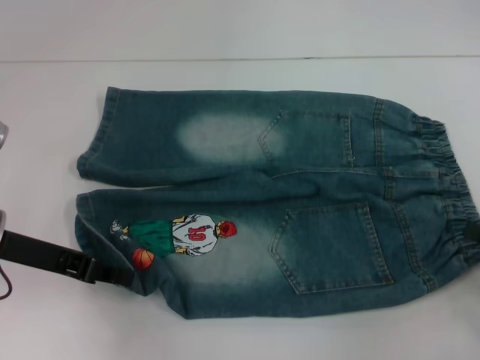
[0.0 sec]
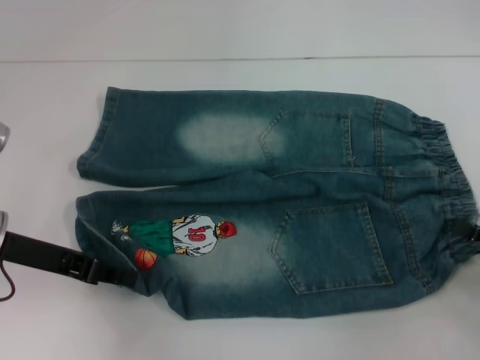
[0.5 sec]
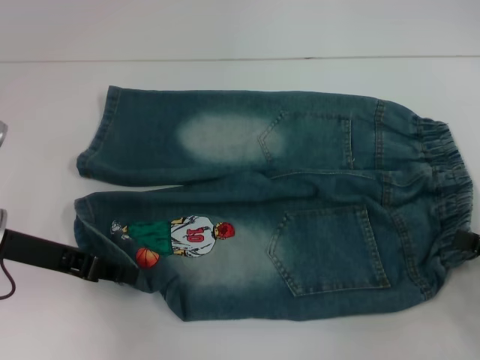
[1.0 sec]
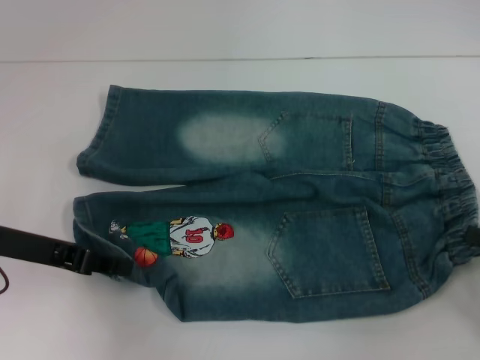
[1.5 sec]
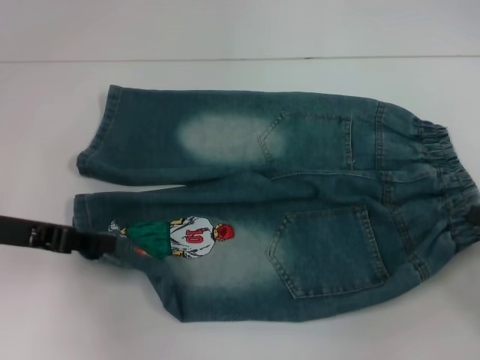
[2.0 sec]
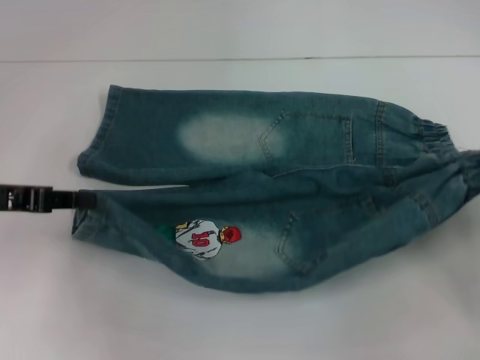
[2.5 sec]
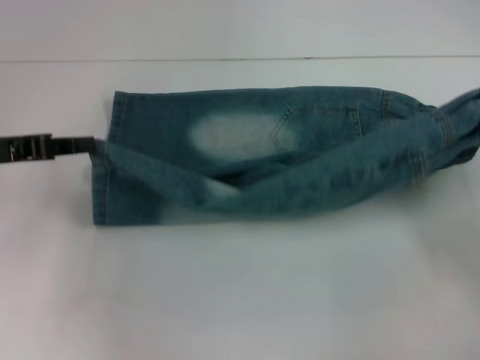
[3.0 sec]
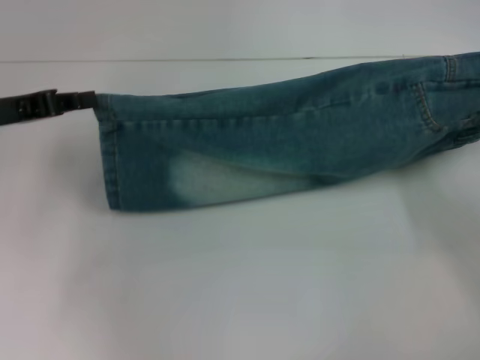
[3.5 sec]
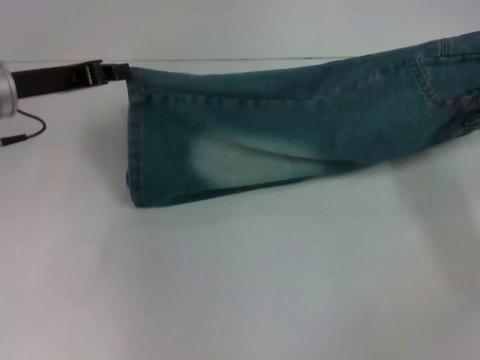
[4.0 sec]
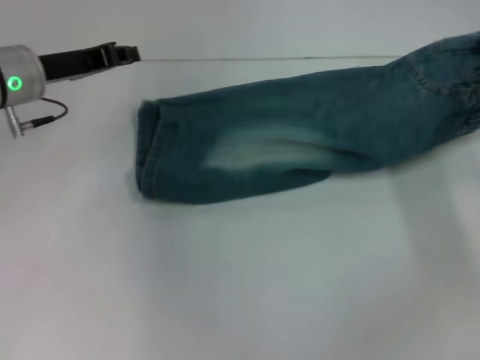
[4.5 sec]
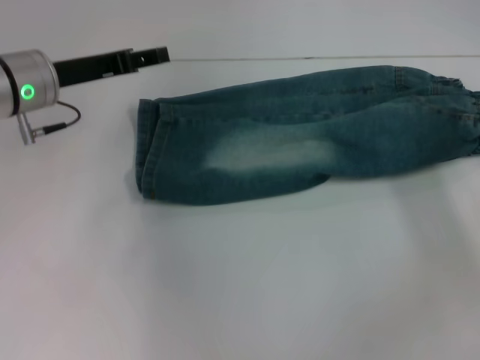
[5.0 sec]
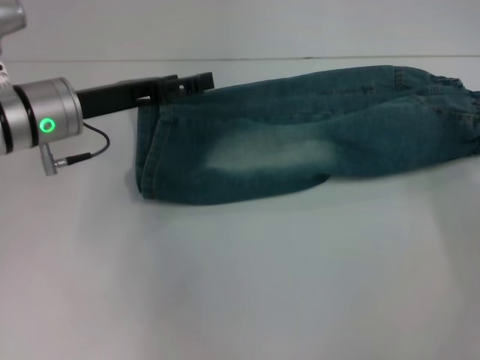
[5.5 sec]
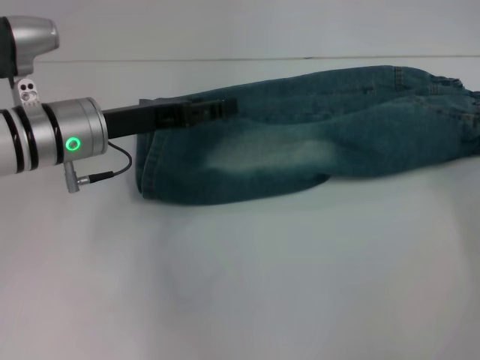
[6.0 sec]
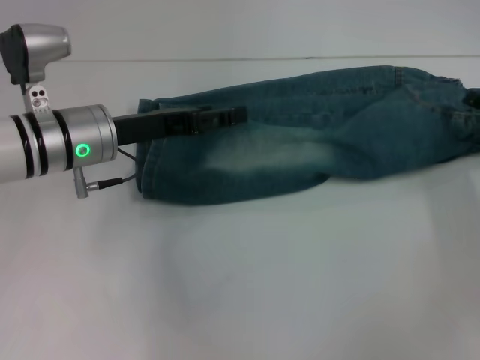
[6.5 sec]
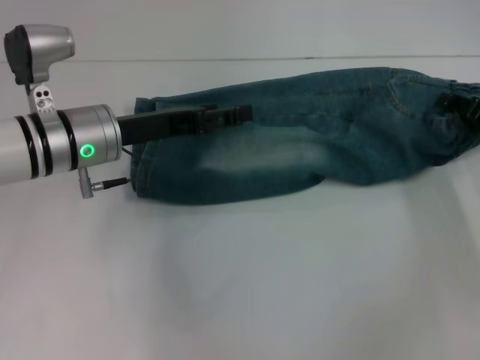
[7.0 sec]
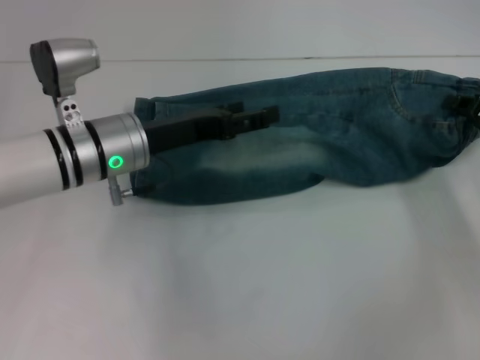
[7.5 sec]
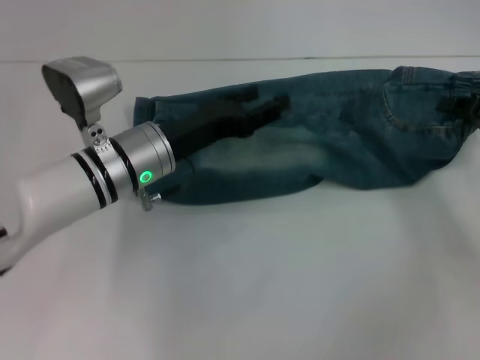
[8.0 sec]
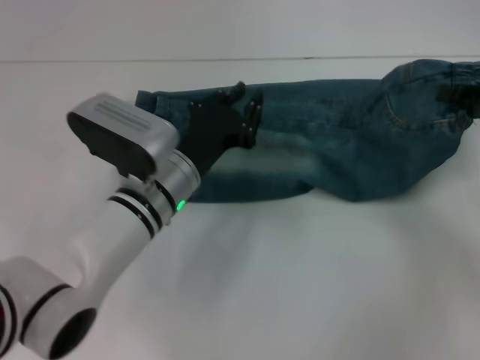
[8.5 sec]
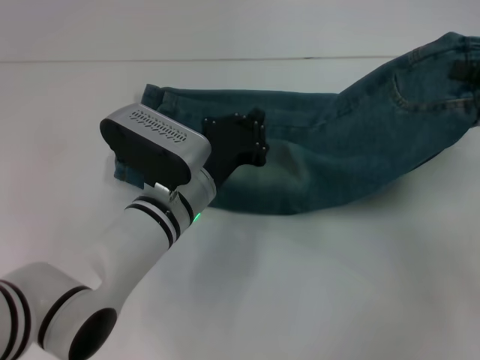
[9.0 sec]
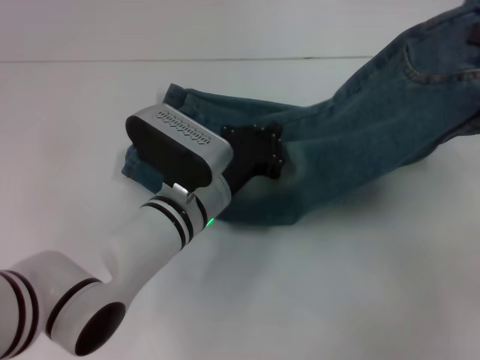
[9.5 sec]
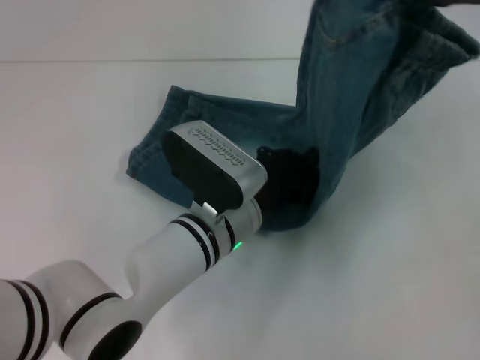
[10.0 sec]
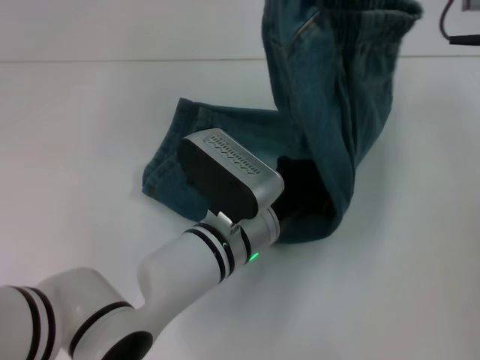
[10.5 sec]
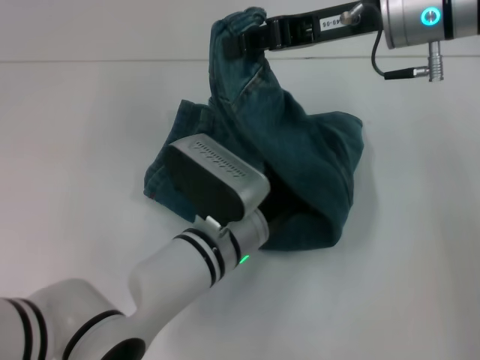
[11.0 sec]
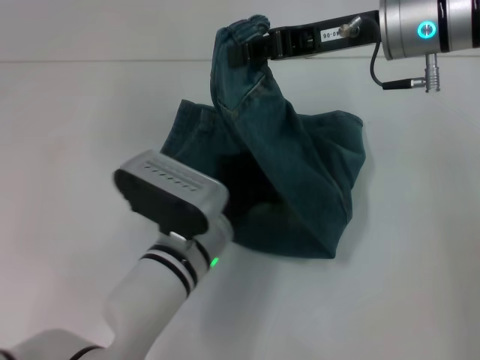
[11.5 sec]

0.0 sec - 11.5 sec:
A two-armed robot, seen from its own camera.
Step, 1.5 sec - 4.5 sec: Fold upward with your right hand.
Step, 5.0 sec - 6.5 sec: Grab the waistband with your right hand.
Step, 7.0 sec - 11.0 sec: Press the middle of the pants with your left hand.
0.0 sec - 2.0 sec: The right gripper closes up.
2.0 sec - 4.0 sec: Both grippers move forward, approximately 10 cm.
4.0 sec - 6.0 sec: The left gripper heads to the right, covering about 10 cm, and opens its fingers, while the right gripper moves about 5 cm, and opens its fingers.
6.0 sec - 7.5 sec: The right gripper ends up some 5 cm from where it was, and closes its fingers.
7.5 sec - 9.5 sec: The right gripper heads upward and backward, covering approximately 10 cm; the left gripper heads to the right and downward, covering approximately 10 cm, and closes its fingers.
9.5 sec - 11.5 sec: The right gripper moves to the left and forward, some 20 cm.

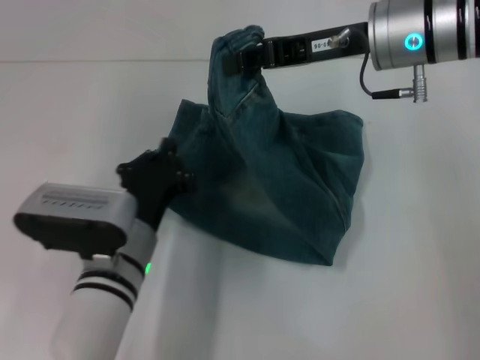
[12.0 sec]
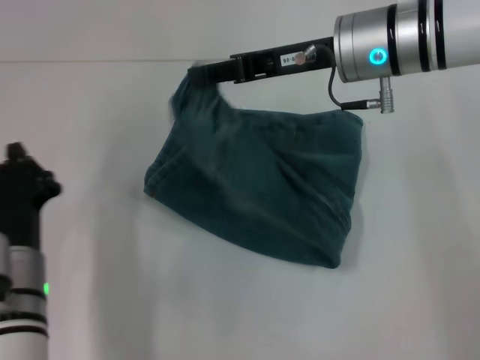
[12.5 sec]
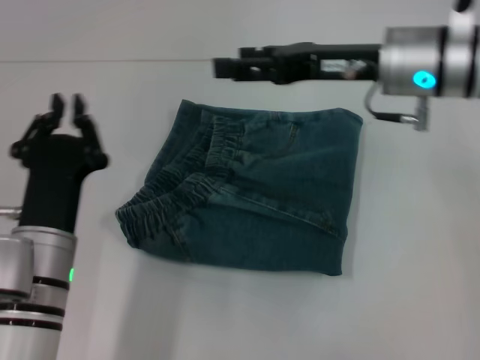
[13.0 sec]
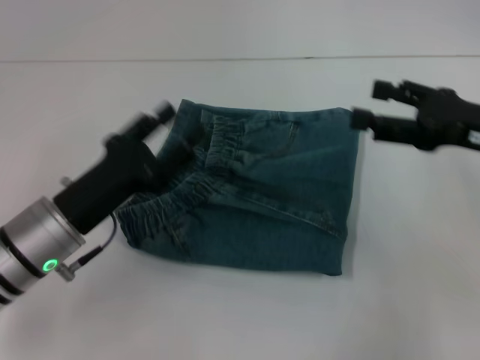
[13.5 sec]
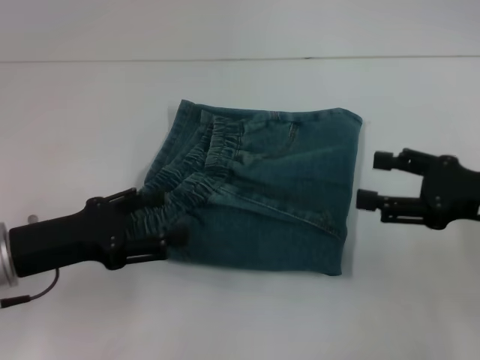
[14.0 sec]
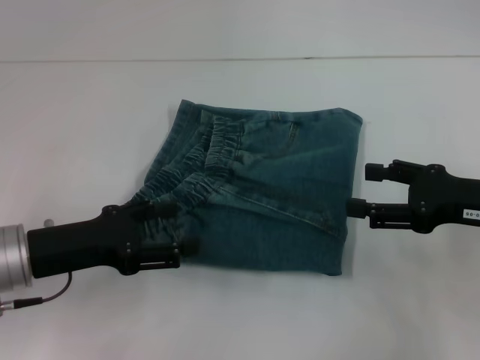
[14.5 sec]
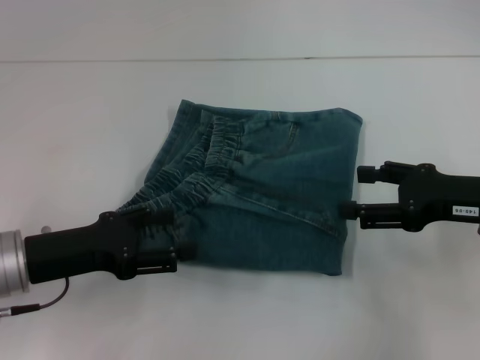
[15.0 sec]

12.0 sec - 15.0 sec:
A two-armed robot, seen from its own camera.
12.0 sec - 13.5 sec: The right gripper goes some 20 cm to the right, backward and downward, and opens, while the left gripper travels to the left by roughly 10 cm, and opens its fingers.
13.5 sec - 15.0 sec: The left gripper ends up some 5 cm from where it was, and opens up.

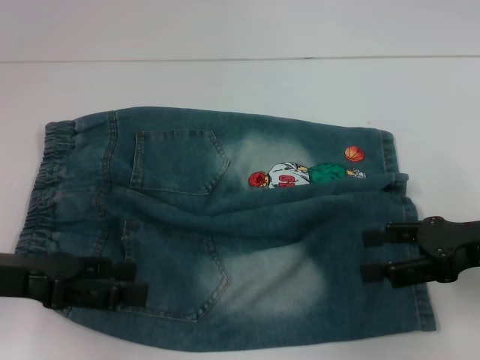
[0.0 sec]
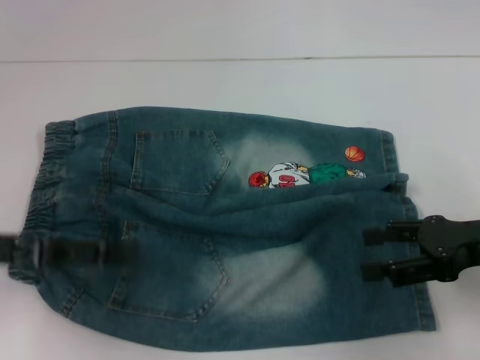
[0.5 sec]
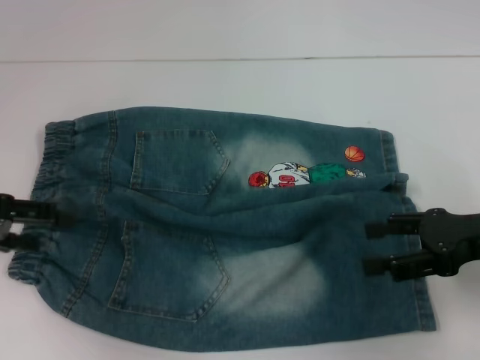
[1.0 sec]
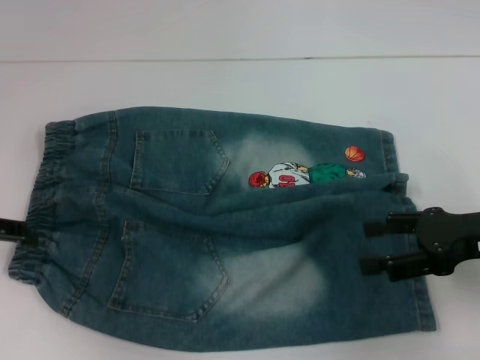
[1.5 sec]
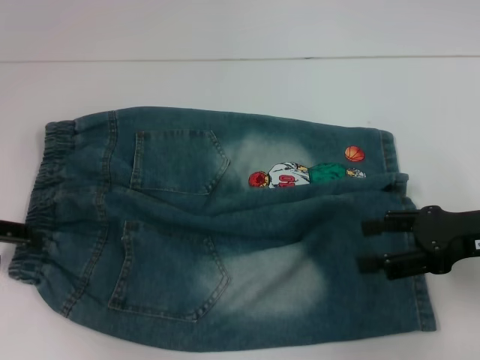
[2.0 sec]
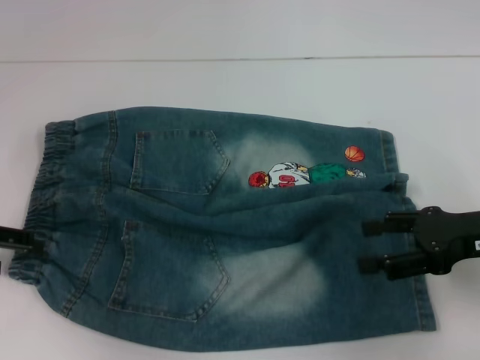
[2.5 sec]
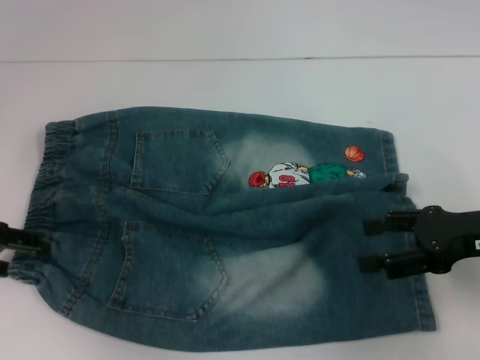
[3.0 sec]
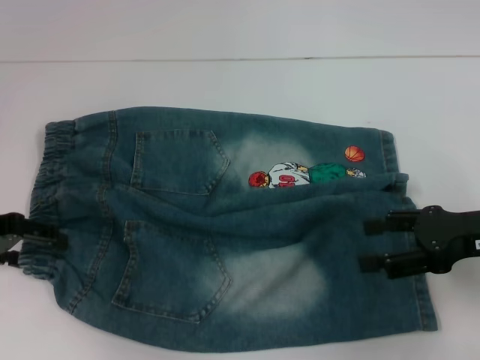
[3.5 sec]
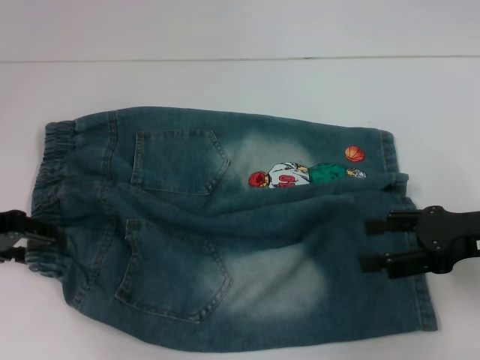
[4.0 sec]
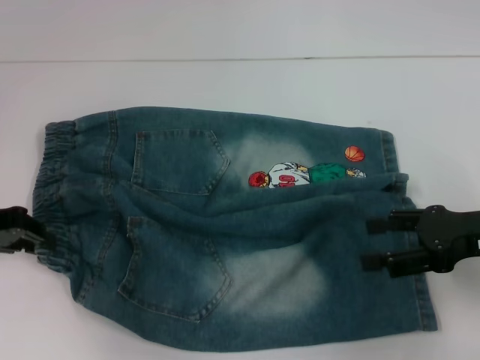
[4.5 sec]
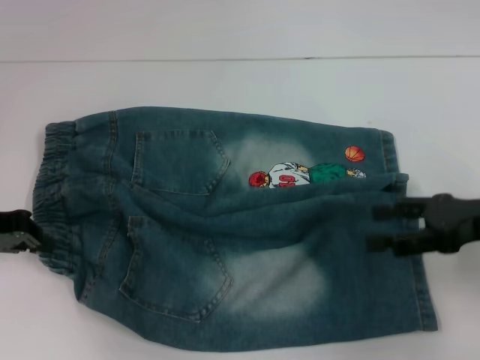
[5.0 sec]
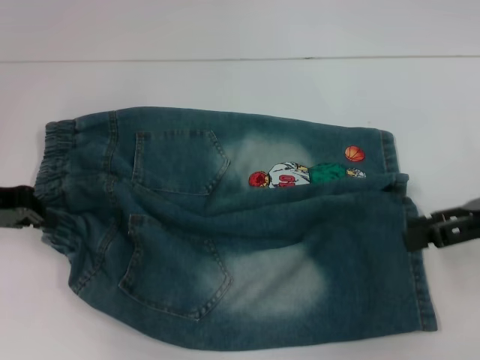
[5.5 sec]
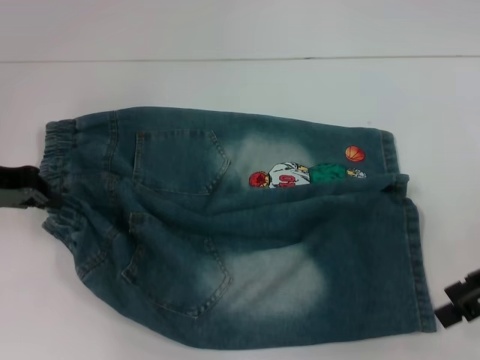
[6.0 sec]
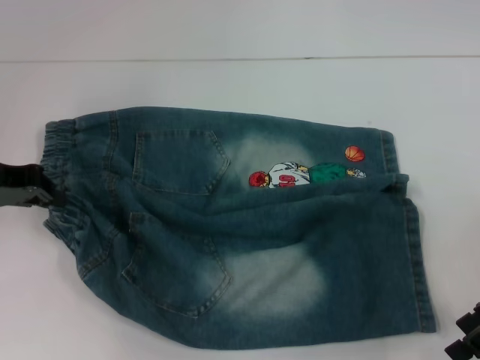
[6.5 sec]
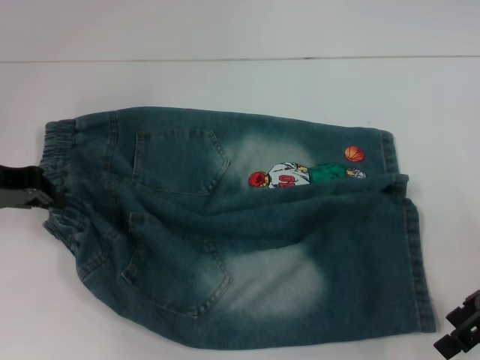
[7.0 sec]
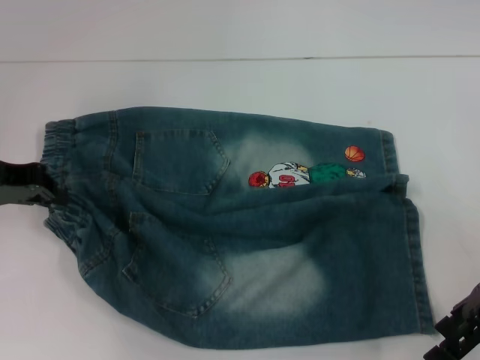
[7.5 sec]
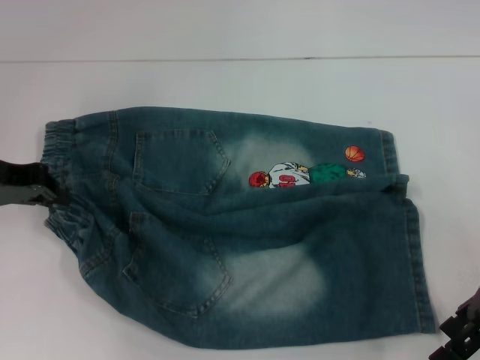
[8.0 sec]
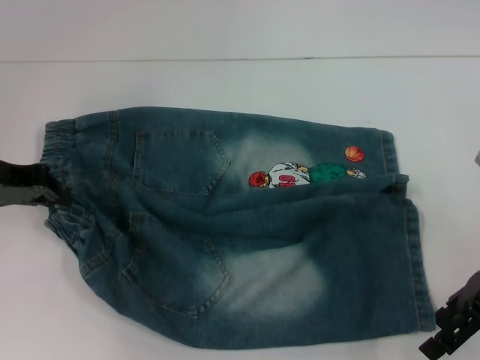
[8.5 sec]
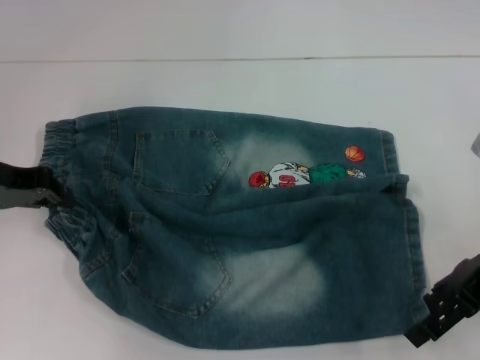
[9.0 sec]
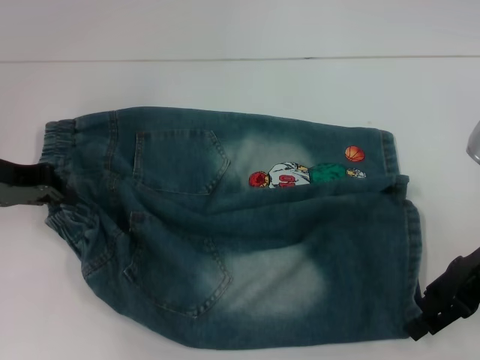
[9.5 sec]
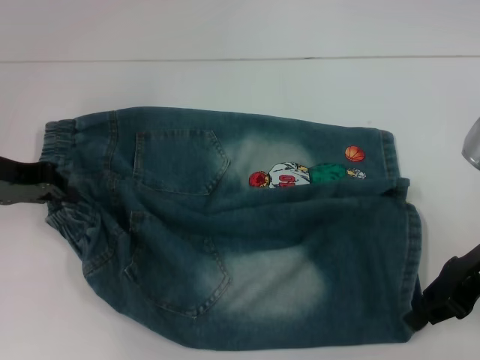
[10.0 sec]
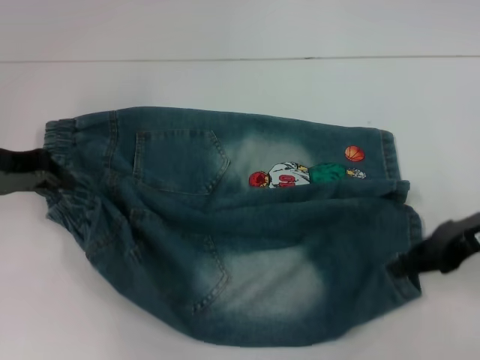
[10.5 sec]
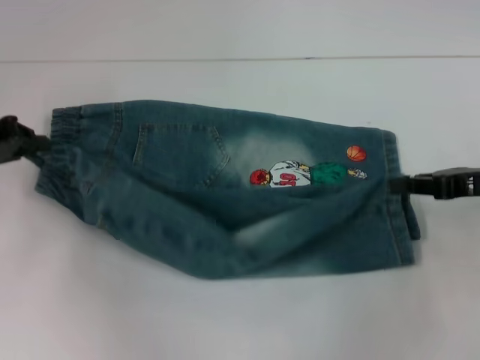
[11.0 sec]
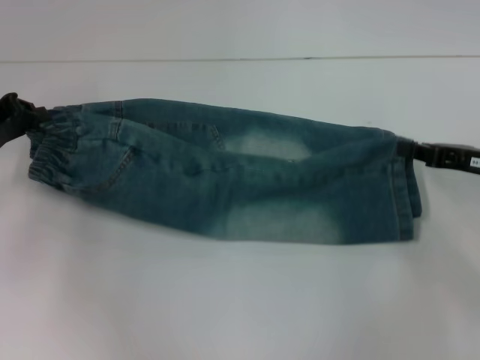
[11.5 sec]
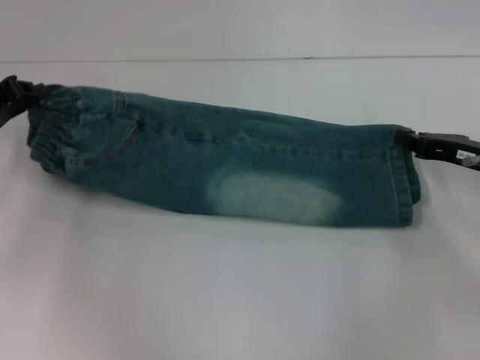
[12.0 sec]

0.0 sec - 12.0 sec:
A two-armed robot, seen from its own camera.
Step, 0.0 sec - 4.5 sec: Hold the lower left waistband with your left hand.
Step, 5.0 sec - 10.0 sec: Grab the lower right pant leg with your right hand.
0.0 sec - 2.0 sec: The left gripper heads to the left and forward, covering approximately 10 cm.
2.0 sec - 4.0 sec: The grippers make only small movements.
4.0 sec - 6.0 sec: The left gripper closes its fingers.
6.0 sec - 8.0 sec: The grippers make only small movements.
8.0 sec - 10.0 sec: The right gripper closes its fingers.
10.0 sec - 12.0 sec: The right gripper is displaced downward by some 5 cm.
